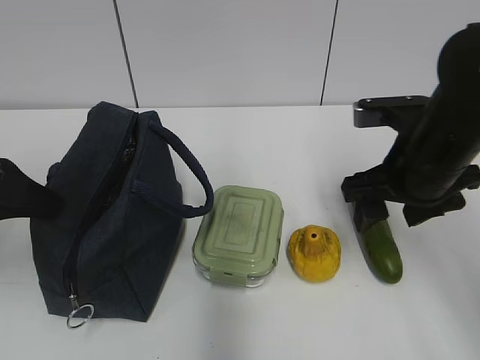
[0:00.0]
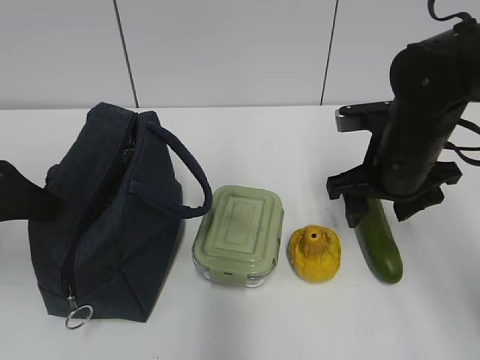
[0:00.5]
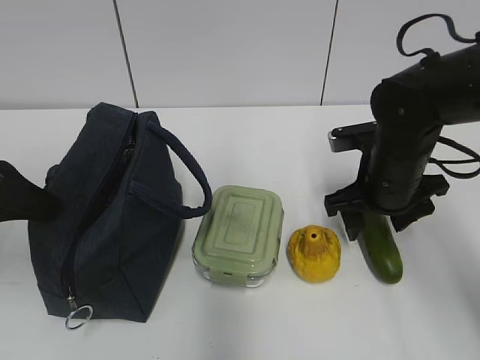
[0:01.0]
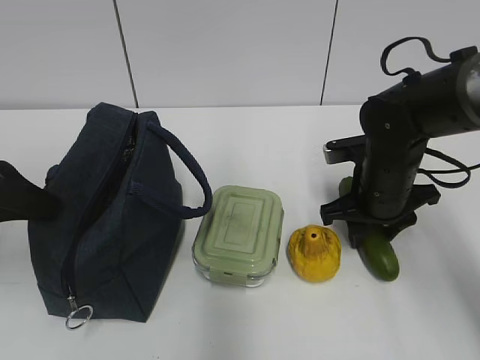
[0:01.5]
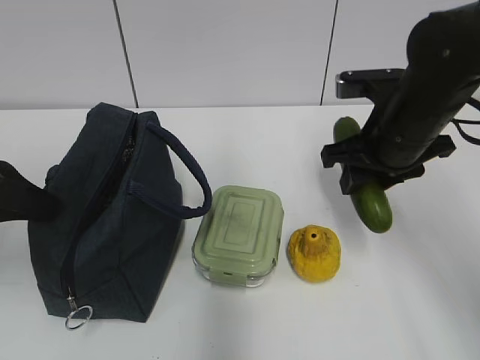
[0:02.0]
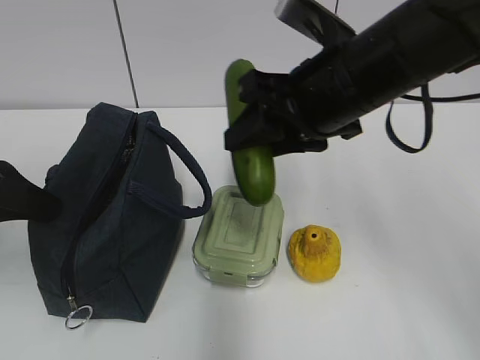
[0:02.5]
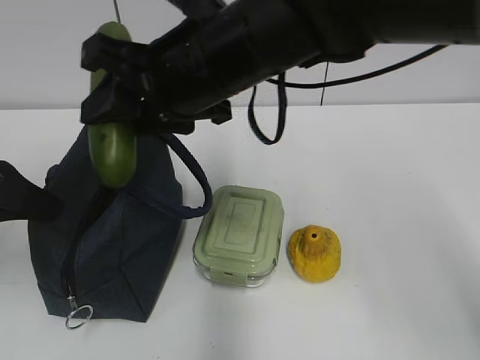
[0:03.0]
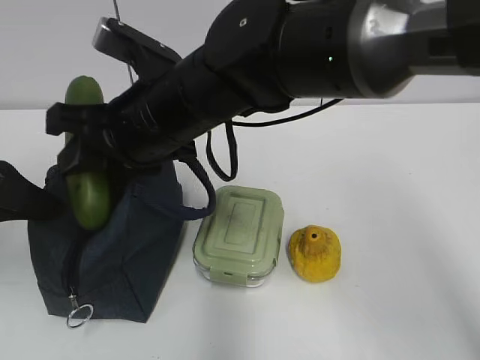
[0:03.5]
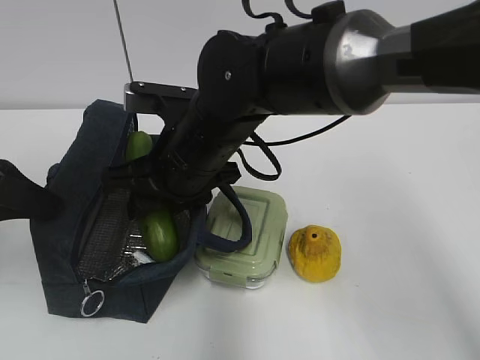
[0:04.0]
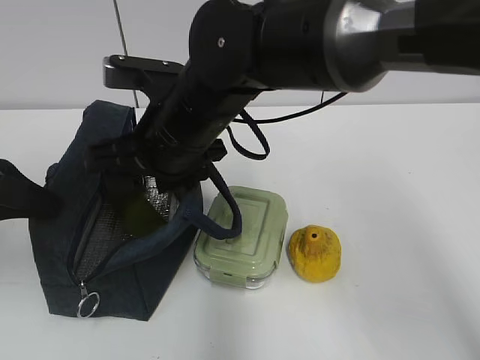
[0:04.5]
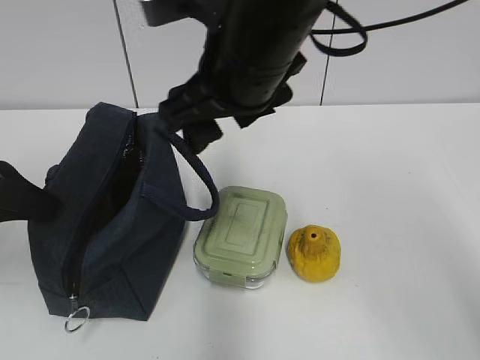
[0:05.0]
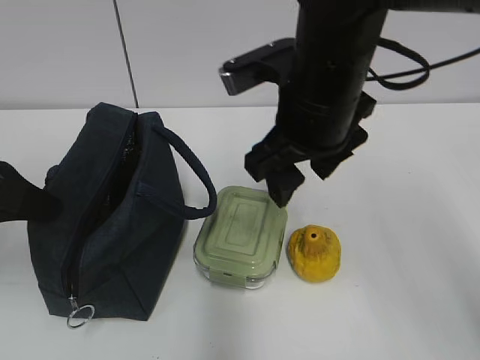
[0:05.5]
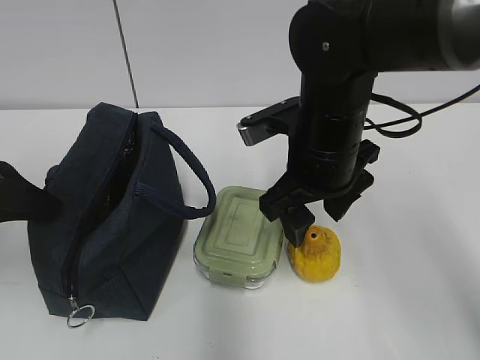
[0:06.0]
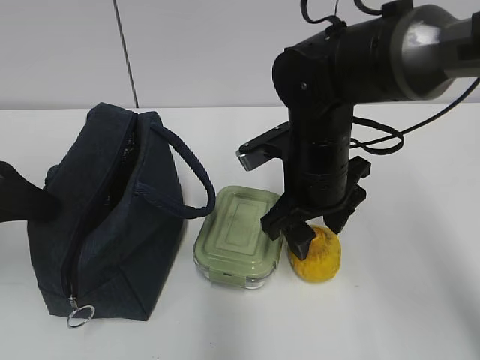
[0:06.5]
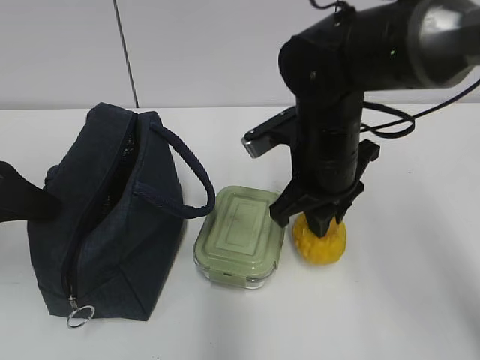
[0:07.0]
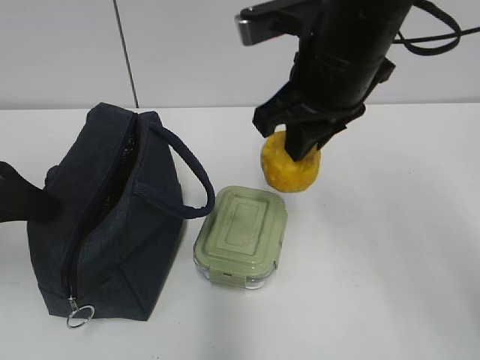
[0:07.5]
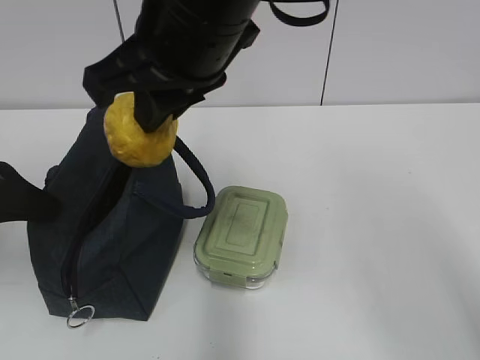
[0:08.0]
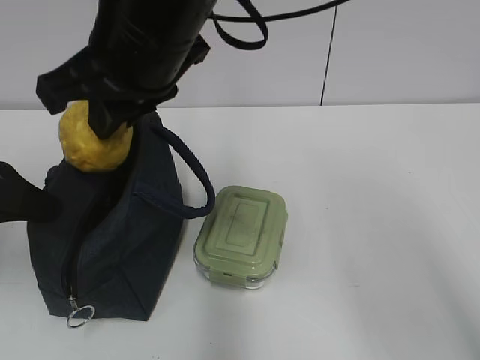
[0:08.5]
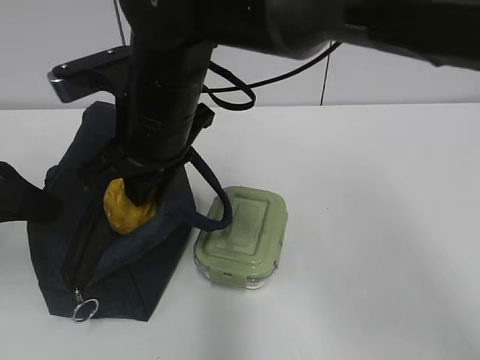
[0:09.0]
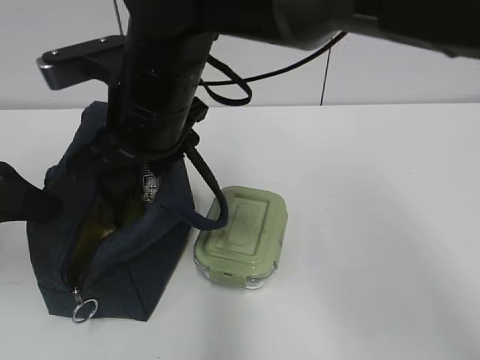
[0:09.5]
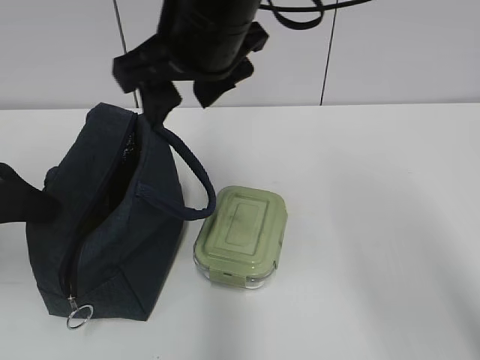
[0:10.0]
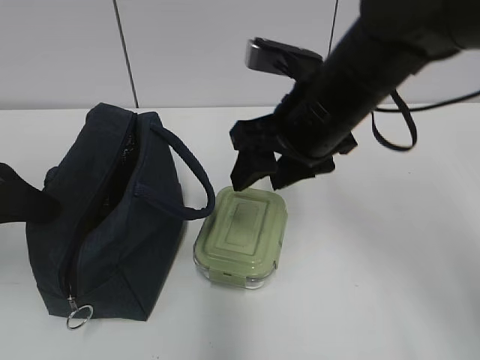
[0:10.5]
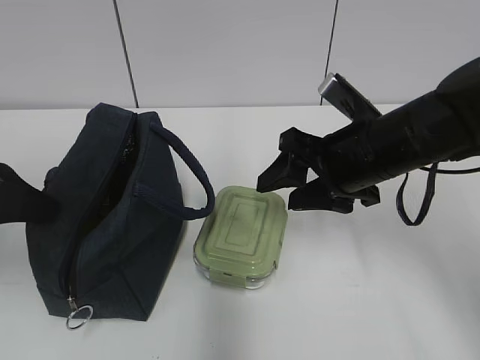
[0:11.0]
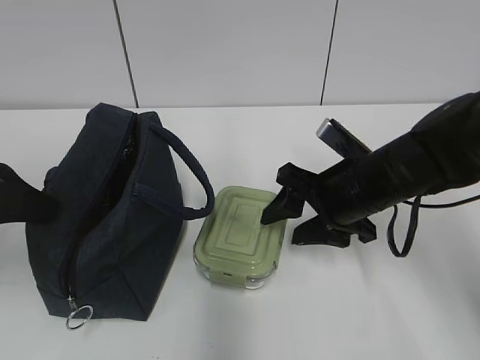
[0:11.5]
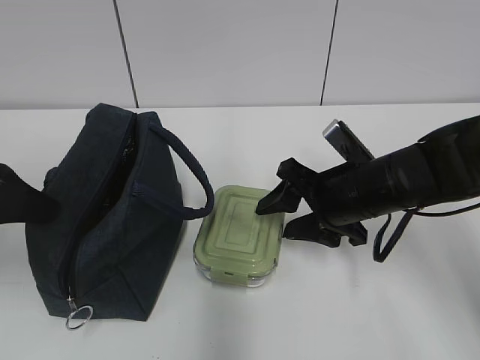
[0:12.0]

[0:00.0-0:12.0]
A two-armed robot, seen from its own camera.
Step, 0:03.5 to 0:04.5: Place it into the bag with your right hand.
Step, 0:05.0 to 0:06.5: Grab the pear with your right hand.
Step, 0:07.0 to 0:09.0: Place it into the bag with your right hand.
0:00.0 to 0:02.0: The right gripper goes downward and returns, roughly 10 cm each way, and closes up.
0:02.0 to 0:04.0: The right gripper is displaced to the left by roughly 20 cm.
0:04.0 to 0:06.0: The right gripper moves to the right, about 10 cm, and opens up.
0:06.0 to 0:08.0: The right gripper moves upward and to the left, about 15 cm, and closes.
0:08.0 to 0:10.0: The right gripper reaches roughly 10 cm downward, then returns, and opens its fingers.
0:10.0 to 0:12.0: The right gripper is displaced downward and to the right by some 25 cm.

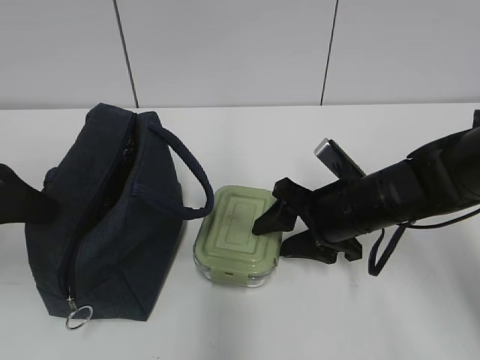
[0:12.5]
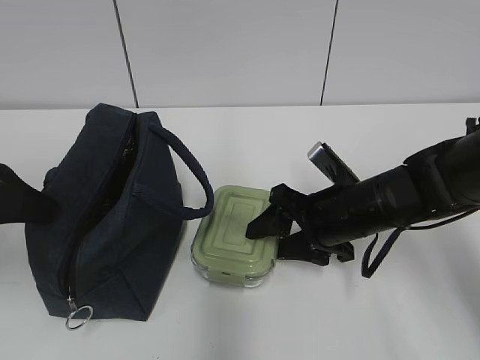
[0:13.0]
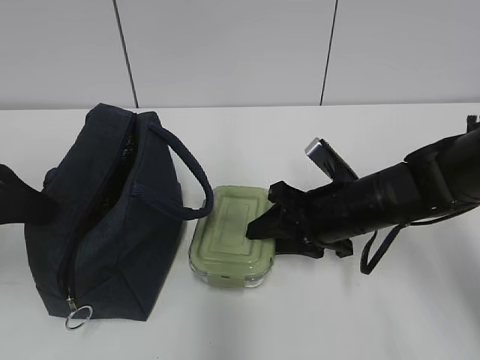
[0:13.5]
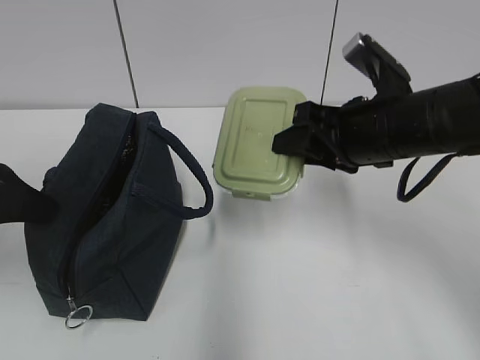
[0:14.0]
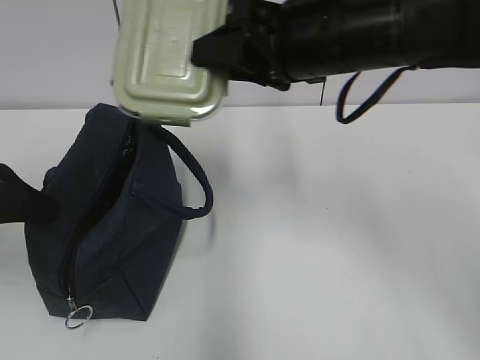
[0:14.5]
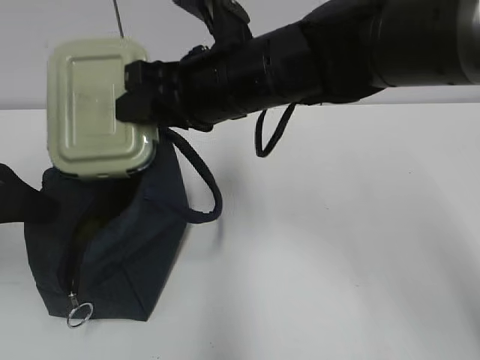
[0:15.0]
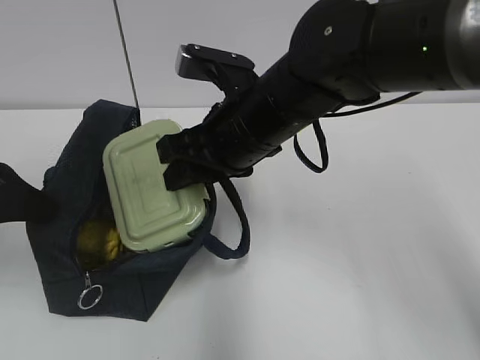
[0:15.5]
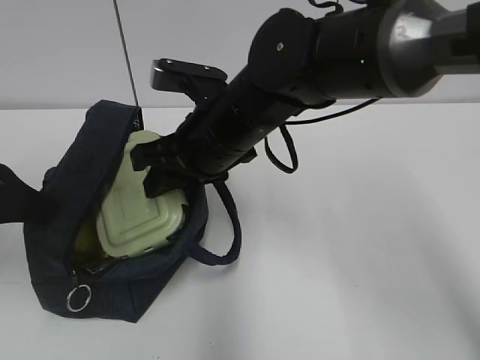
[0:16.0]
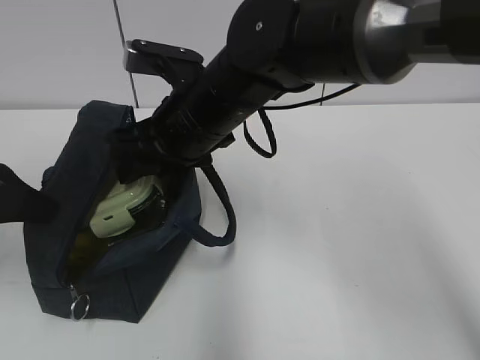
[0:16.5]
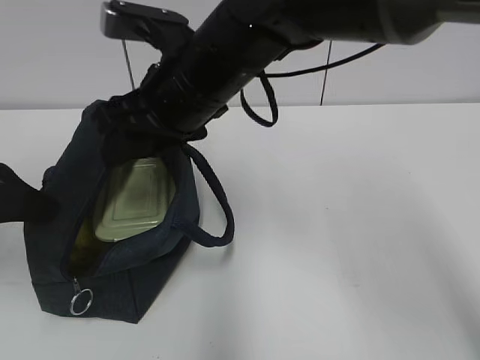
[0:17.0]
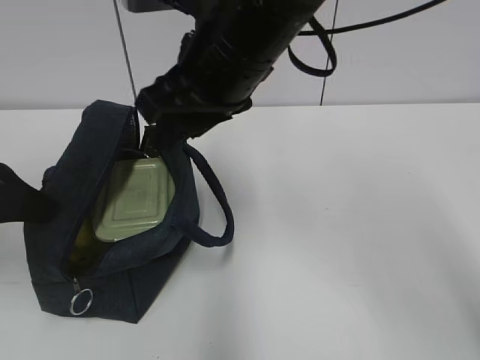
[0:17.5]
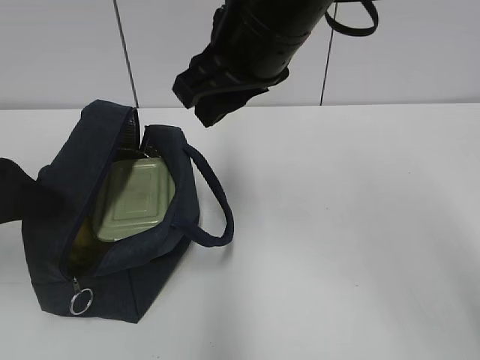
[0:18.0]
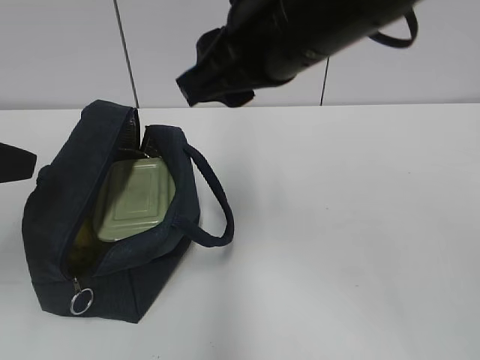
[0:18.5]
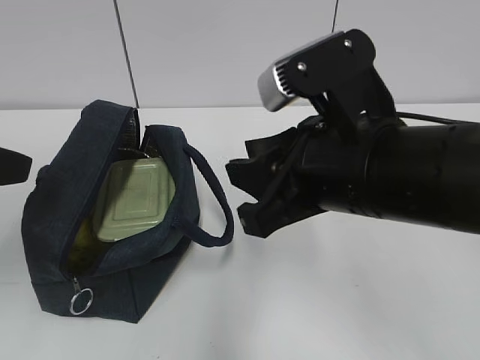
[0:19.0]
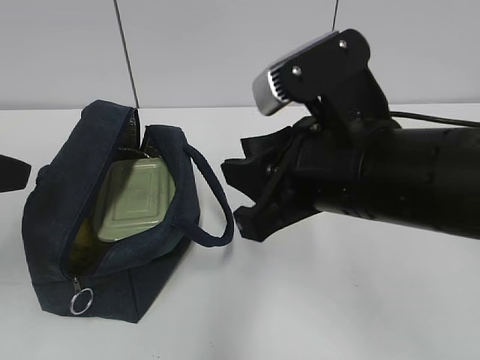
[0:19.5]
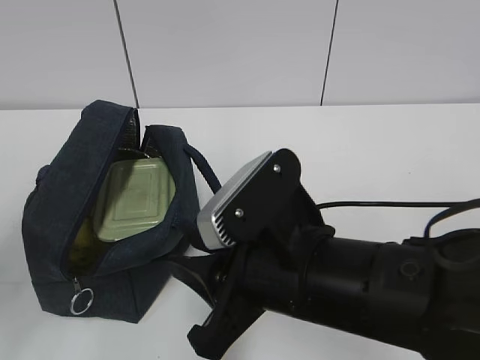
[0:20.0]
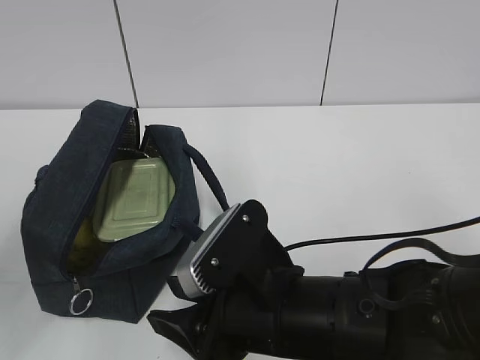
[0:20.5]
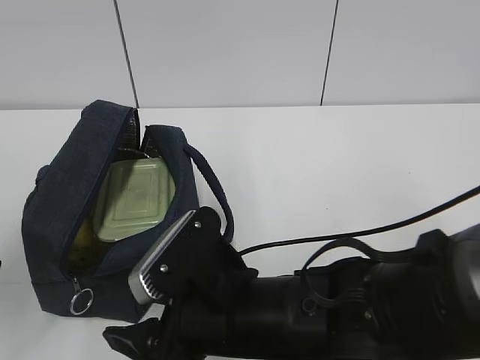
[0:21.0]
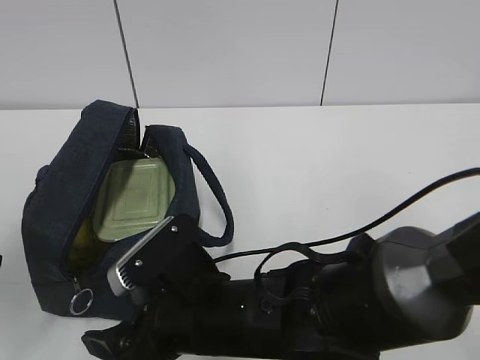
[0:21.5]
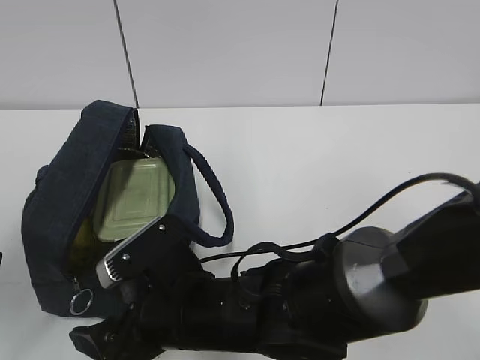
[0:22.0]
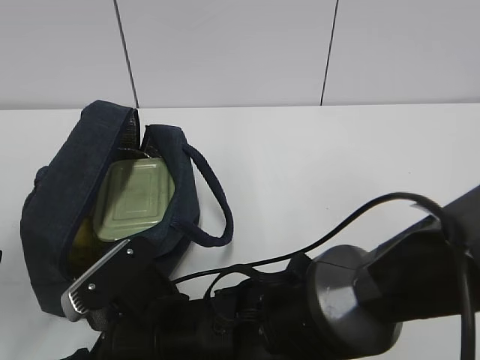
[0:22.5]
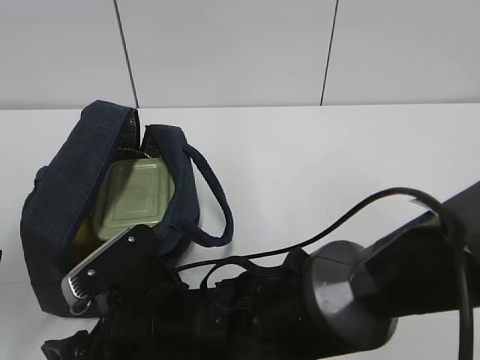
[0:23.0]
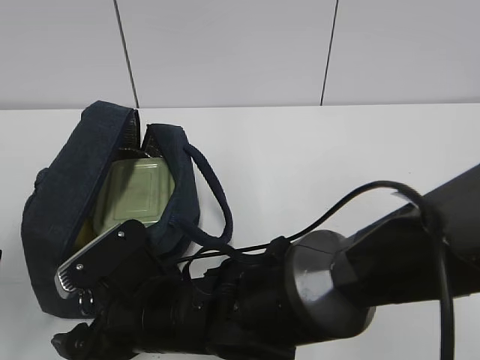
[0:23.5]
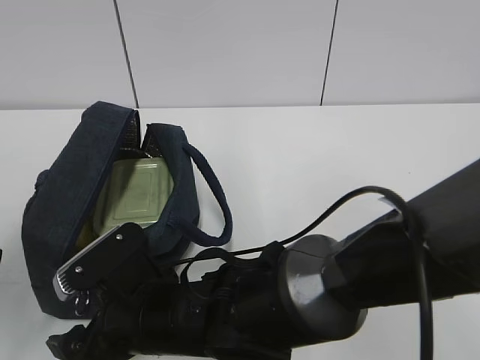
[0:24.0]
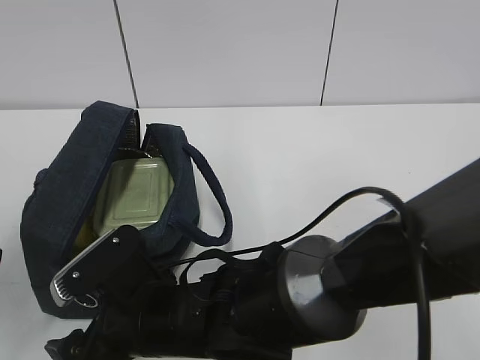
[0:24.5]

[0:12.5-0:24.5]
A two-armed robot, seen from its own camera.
0:12.5 to 0:14.5: The right gripper is displaced upward by approximately 20 cm.
0:14.5 to 0:16.5: The right gripper shifts some 15 cm to the left and downward.
0:16.5 to 0:18.5: The right gripper moves upward, backward and to the right, roughly 15 cm, while the left gripper moves approximately 5 cm, and opens.
0:18.5 to 0:20.5: The left gripper travels backward by roughly 5 cm; the right gripper moves downward and backward, some 20 cm.
0:20.5 to 0:22.5: The right gripper is displaced to the left by roughly 10 cm, and opens up.
0:22.5 to 0:24.5: The grippers stay close to where they were, moving slightly.

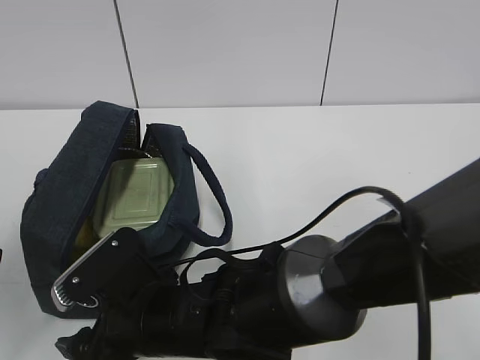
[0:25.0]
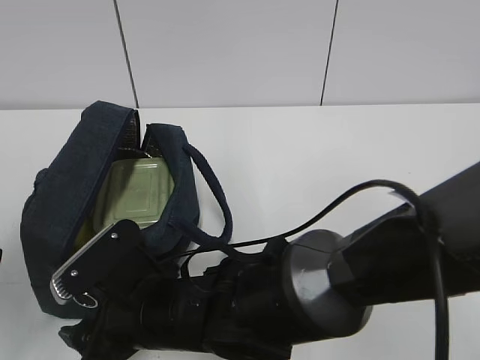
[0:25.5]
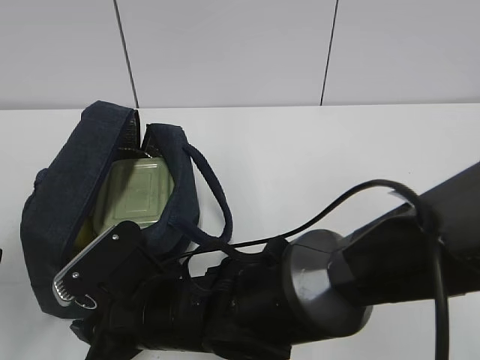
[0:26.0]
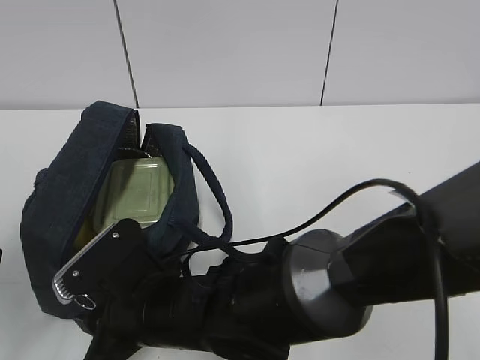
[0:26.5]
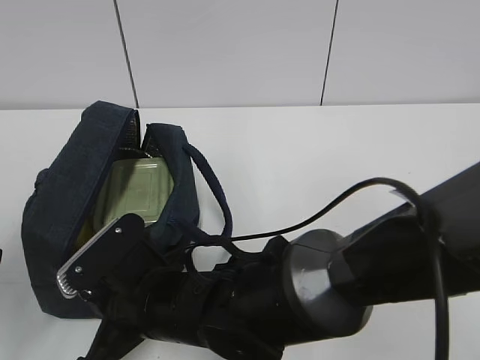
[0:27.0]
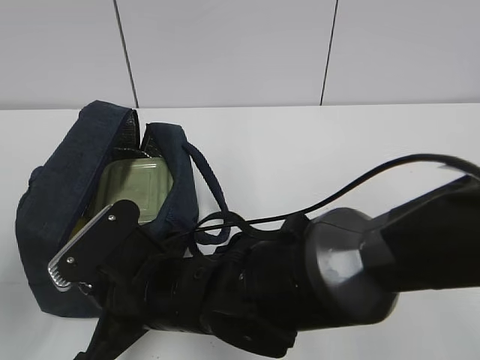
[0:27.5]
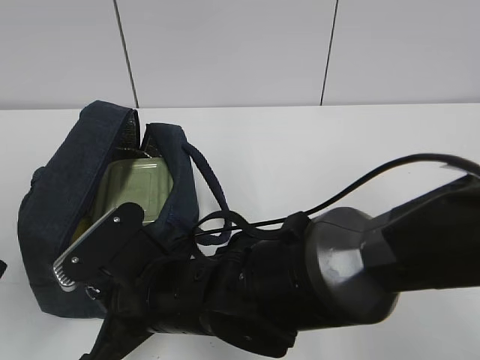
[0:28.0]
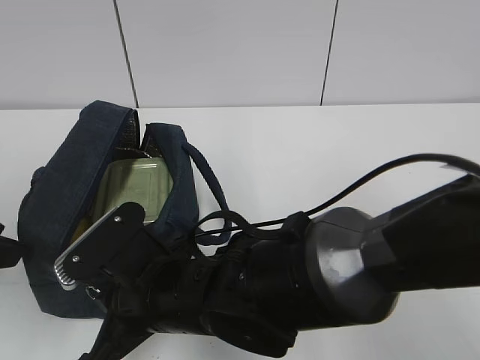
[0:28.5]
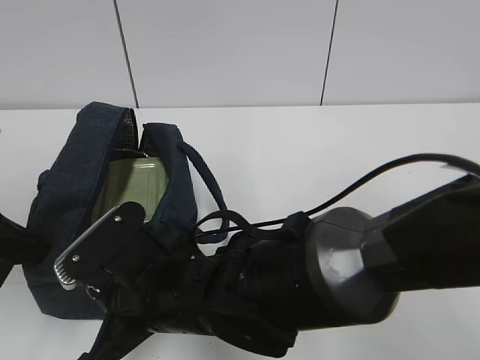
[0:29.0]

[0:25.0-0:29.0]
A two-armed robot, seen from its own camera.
0:25.0 to 0:27.0: The right gripper closes its fingers.
0:27.0 to 0:29.0: The left gripper moves forward, some 10 cm, and closes up.
